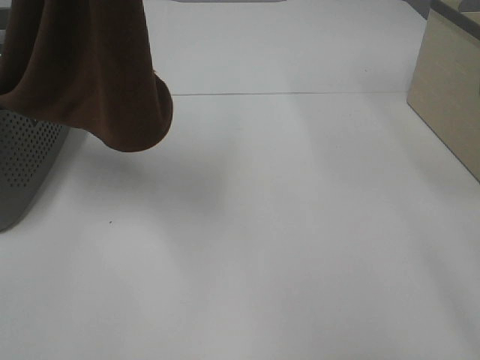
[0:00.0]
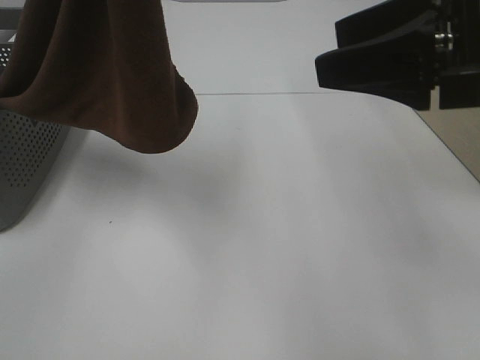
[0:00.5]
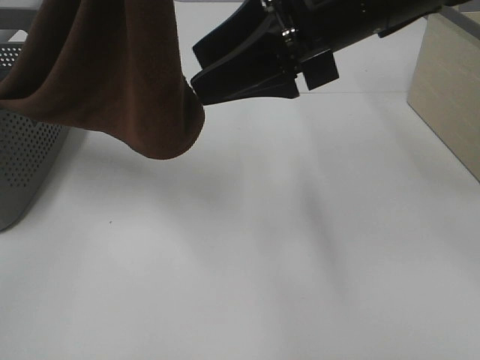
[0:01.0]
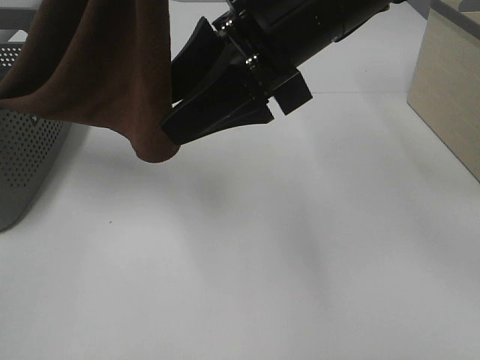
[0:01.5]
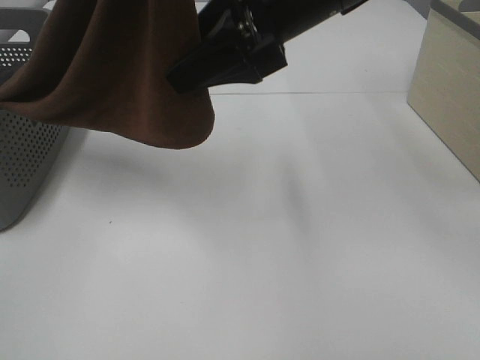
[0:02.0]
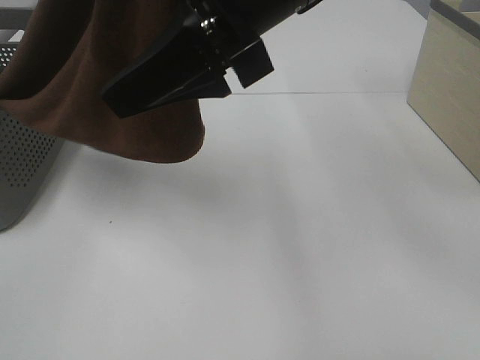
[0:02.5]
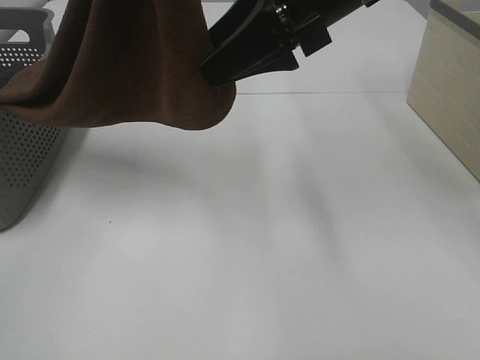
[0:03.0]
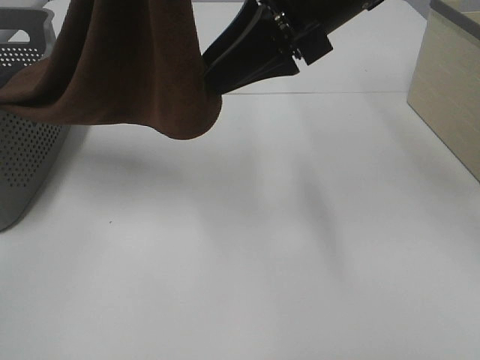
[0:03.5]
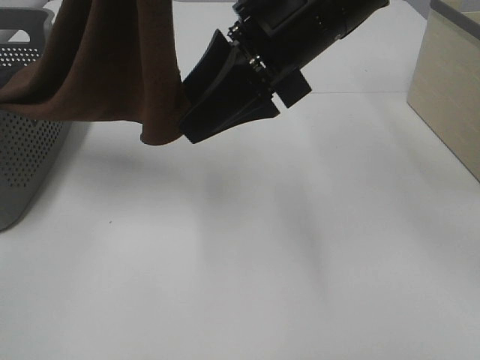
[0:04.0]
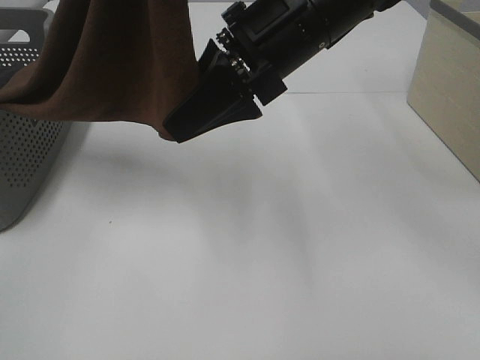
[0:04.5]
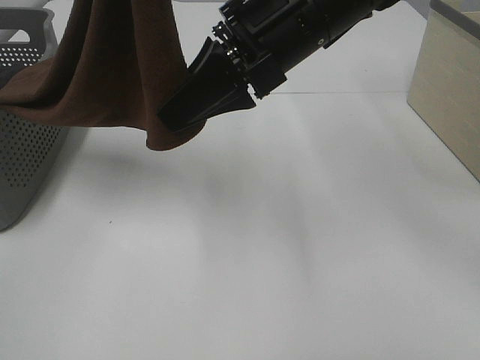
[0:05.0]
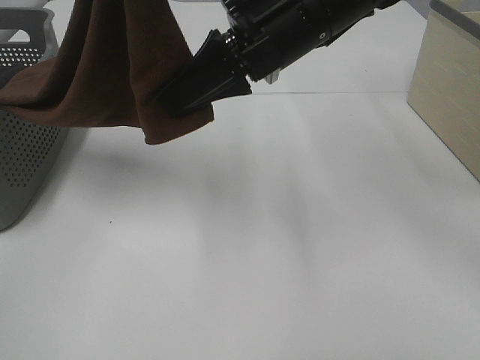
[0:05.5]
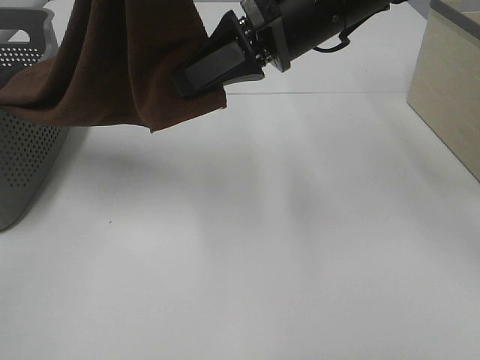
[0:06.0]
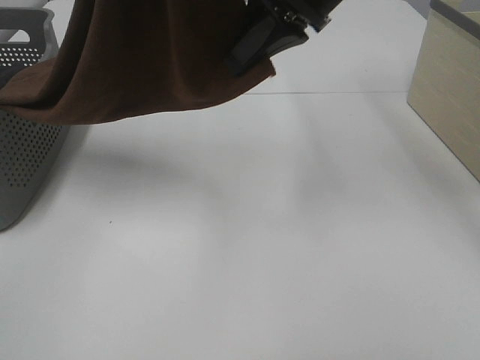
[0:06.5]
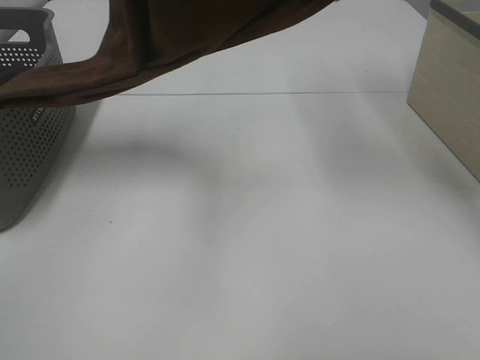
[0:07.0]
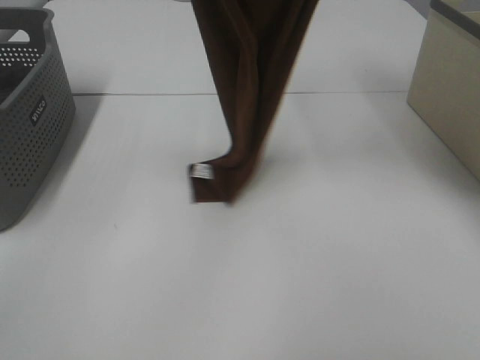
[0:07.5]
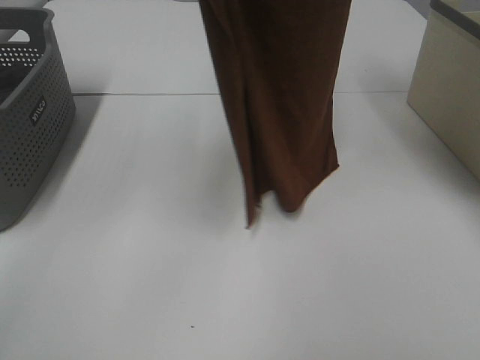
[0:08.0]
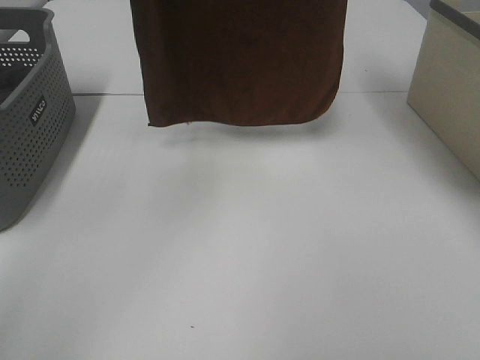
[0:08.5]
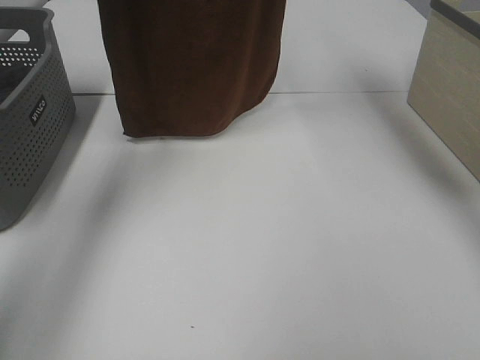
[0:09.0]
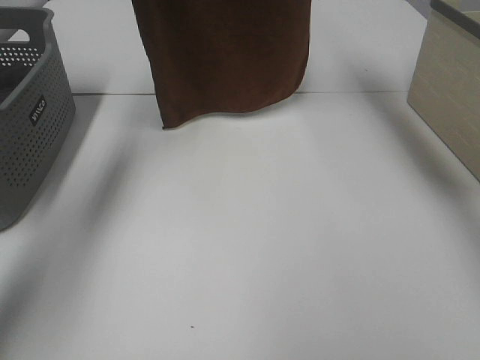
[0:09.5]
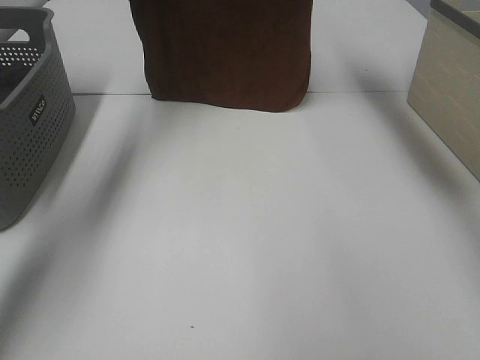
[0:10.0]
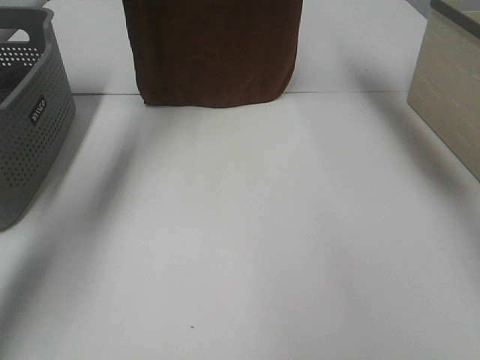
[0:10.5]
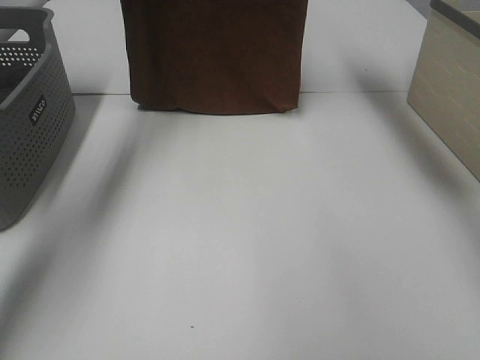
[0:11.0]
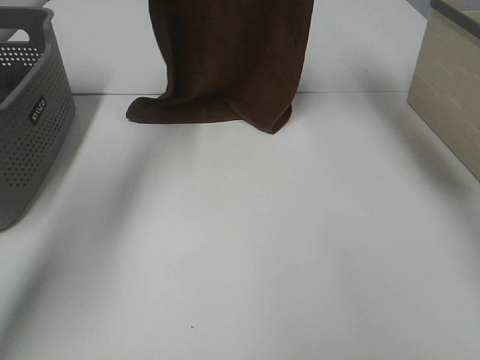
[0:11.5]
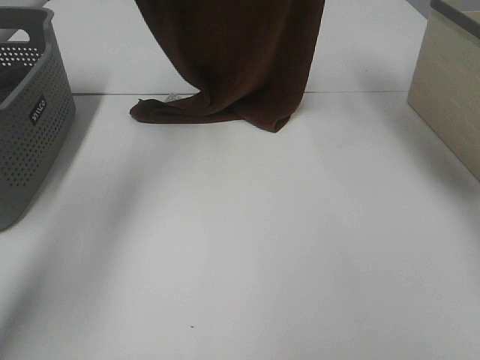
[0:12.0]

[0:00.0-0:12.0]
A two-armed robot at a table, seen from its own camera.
Task of the whole recording: Remove the towel and place it.
Step, 0.0 to 6.5 s: Right hand: grab a corner of the brown towel and straighten it.
0.0 to 2.0 s: The right gripper is displaced to the left and forward by some 25 cm.
2.0 to 4.0 s: There are only small adjustments of the grippers.
4.0 to 6.0 s: The right gripper closes its fingers.
6.0 to 8.0 s: The left gripper goes about 10 cm forward, while the right gripper goes approximately 25 cm upward.
8.0 to 10.0 s: The right gripper moves forward and downward, some 15 cm. The left gripper heads forward, downward and to the left, covering approximately 25 cm.
10.0 to 12.0 s: The right gripper ends up some 5 cm from where it was. Meanwhile the left gripper travels downward by roughly 5 cm.

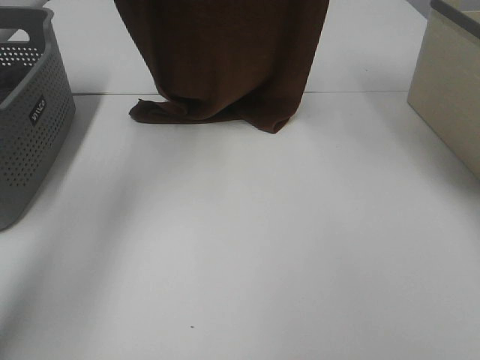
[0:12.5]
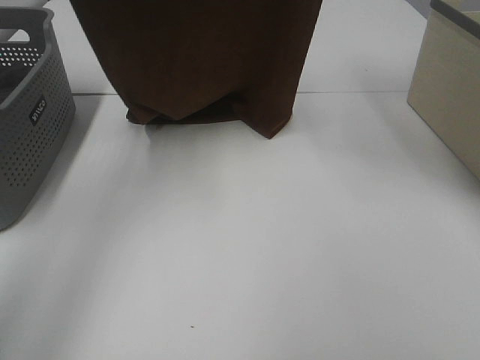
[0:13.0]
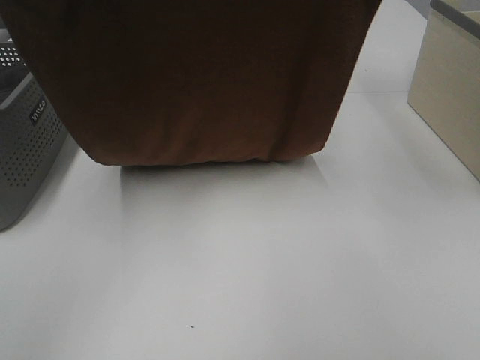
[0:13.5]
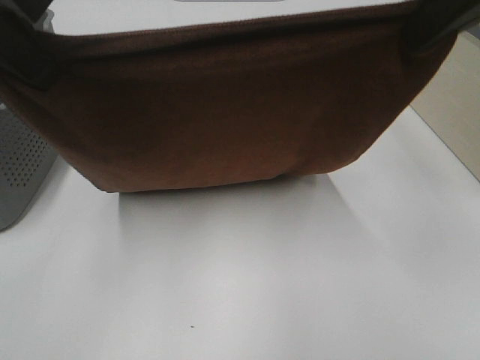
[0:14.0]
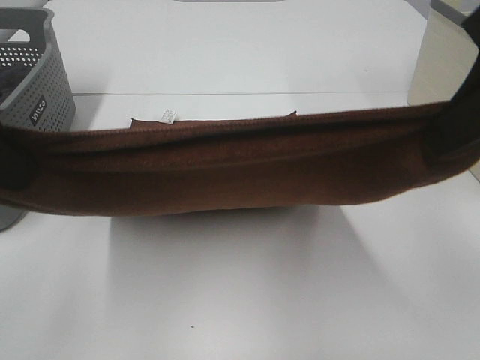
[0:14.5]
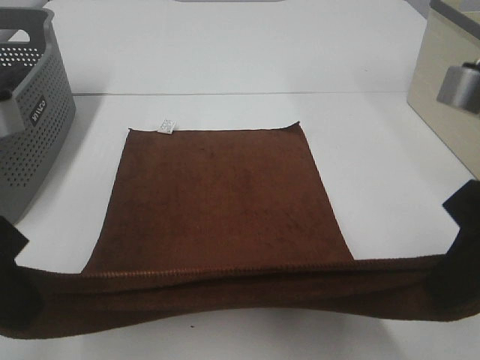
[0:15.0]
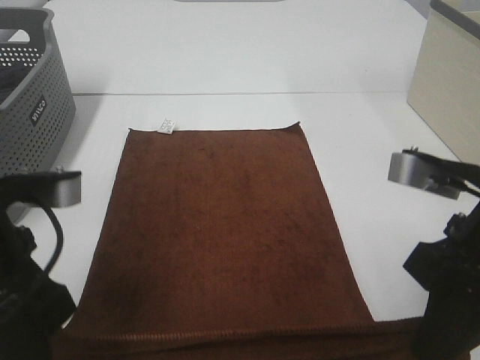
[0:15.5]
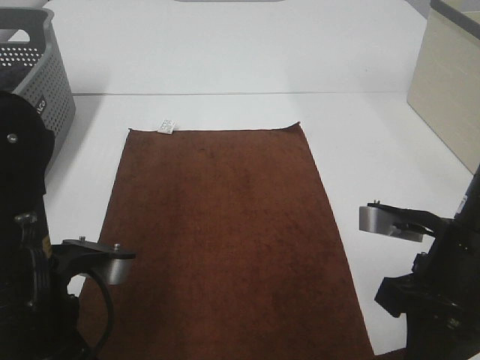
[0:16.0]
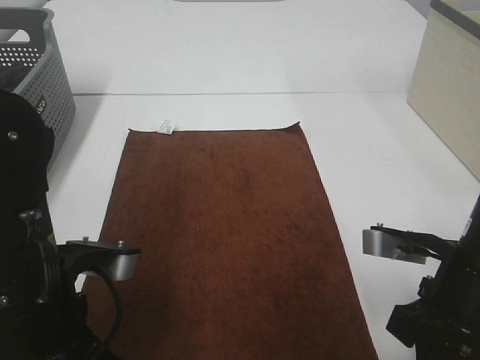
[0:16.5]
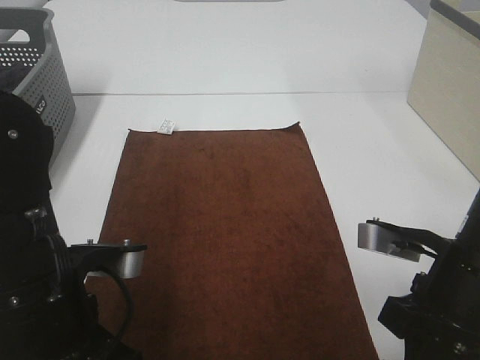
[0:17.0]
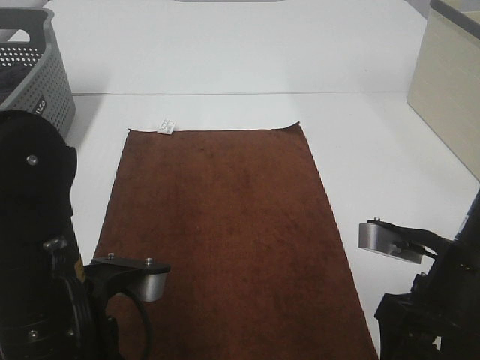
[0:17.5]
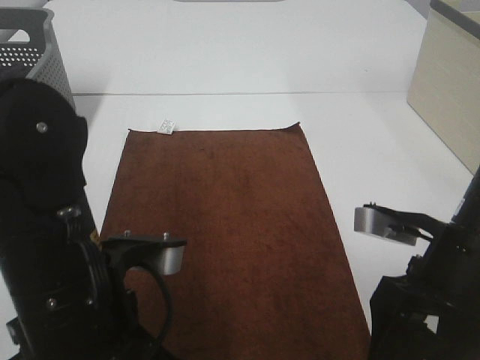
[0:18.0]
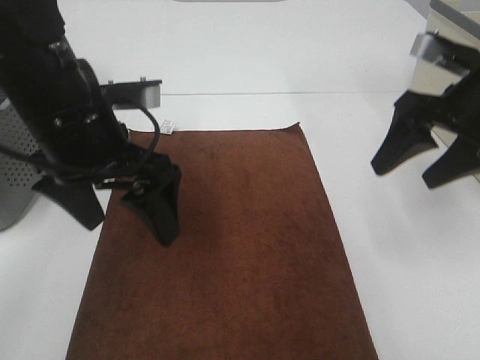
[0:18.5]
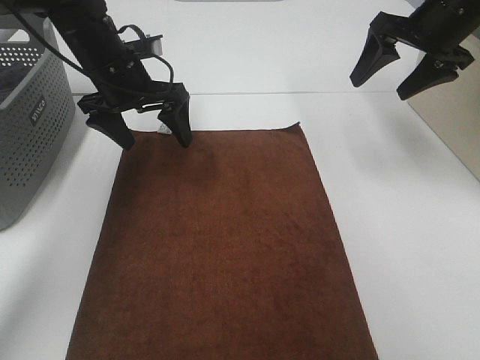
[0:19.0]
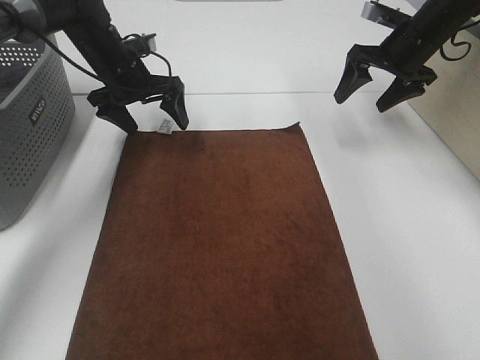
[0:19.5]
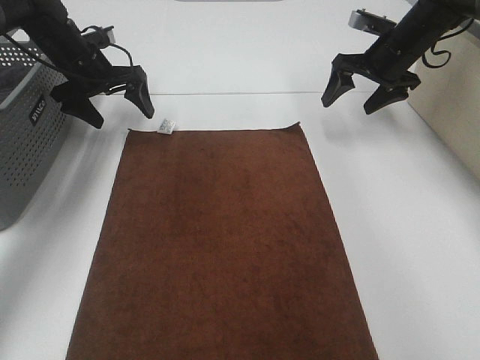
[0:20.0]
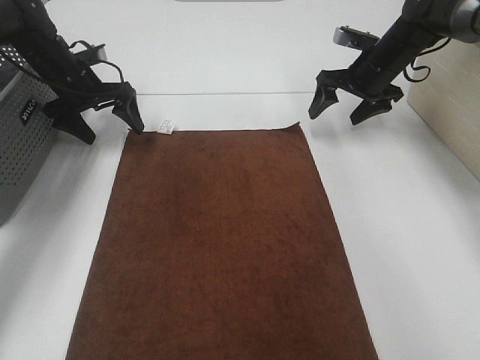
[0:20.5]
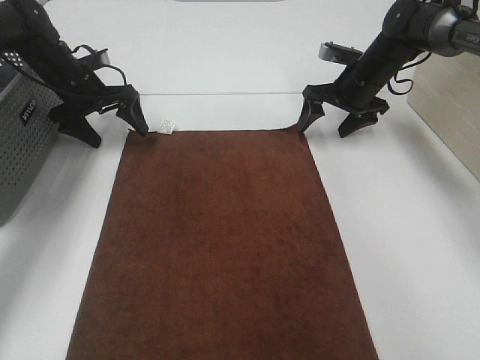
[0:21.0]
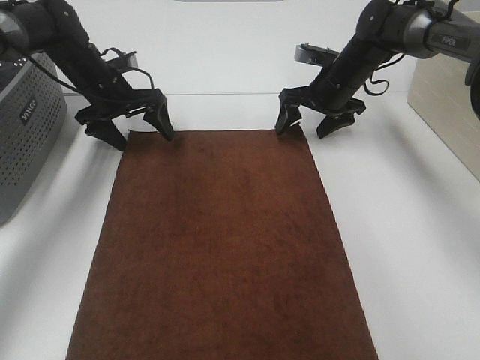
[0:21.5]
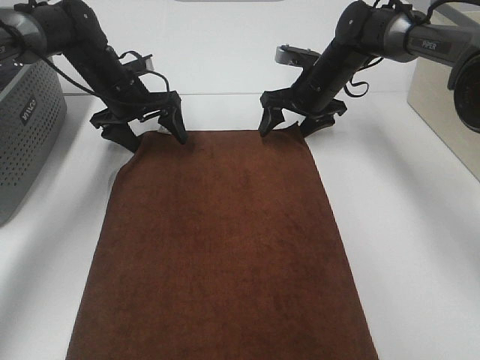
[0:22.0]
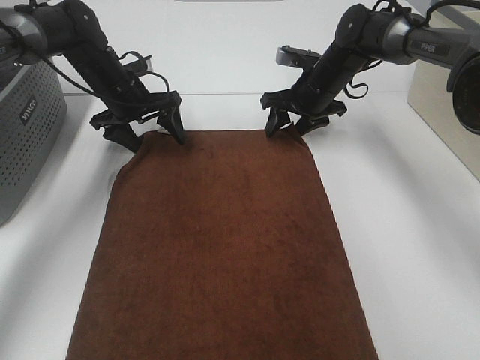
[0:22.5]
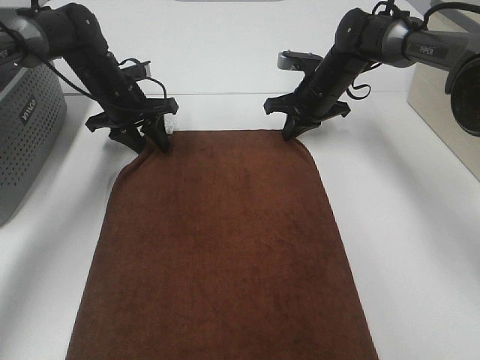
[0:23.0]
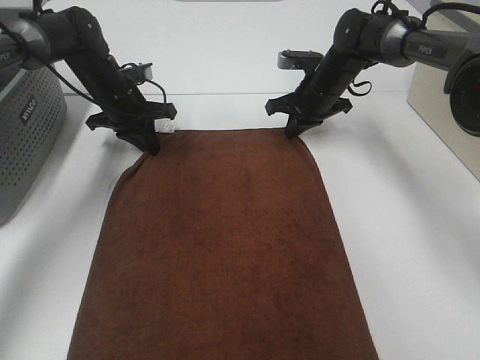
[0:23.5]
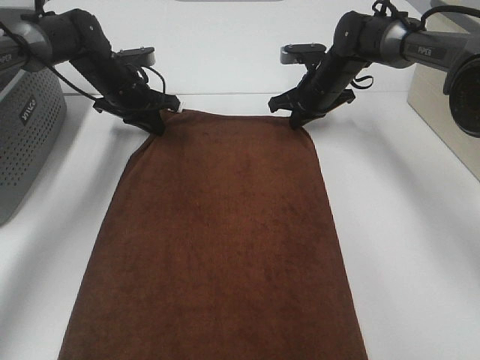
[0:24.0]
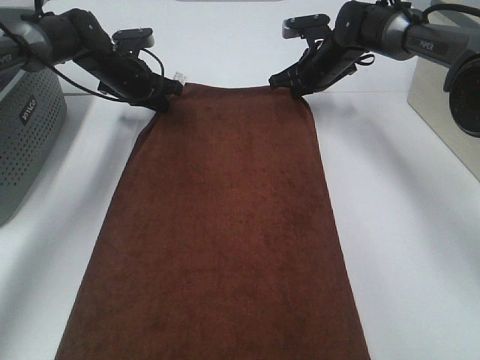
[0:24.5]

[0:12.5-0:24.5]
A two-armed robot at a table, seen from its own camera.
Task of the whole recording: Remove the towel and place it.
Step, 12.5 to 20.5 s: Left hand:adjust the brown towel.
Step, 12.5 to 20.5 s: Right hand:adjust the brown towel.
12.5 to 14.5 s: The two grippers go some 25 cm backward.
14.5 to 16.5 s: The two grippers go approximately 20 cm downward.
16.5 to 18.5 s: Both grippers move forward and upward, roughly 15 cm. The right gripper opens up; the left gripper opens up.
18.5 to 20.5 s: The left gripper goes approximately 30 cm forward, to the left and downward. Meanwhile the right gripper moves forward and downward, roughly 25 cm.
20.5 to 22.5 s: The right gripper shifts some 10 cm to the left. Meanwhile the left gripper travels to the right by some 5 cm.
22.5 to 24.5 s: The right gripper closes. The left gripper closes its fingers.

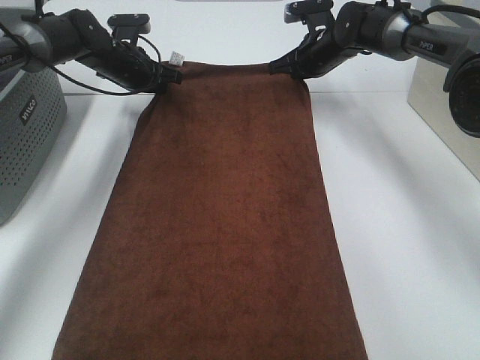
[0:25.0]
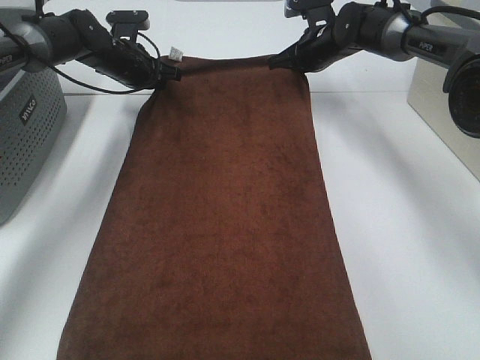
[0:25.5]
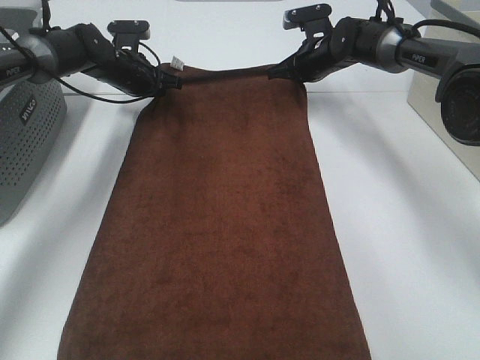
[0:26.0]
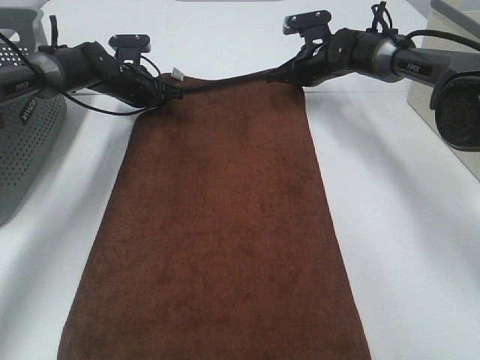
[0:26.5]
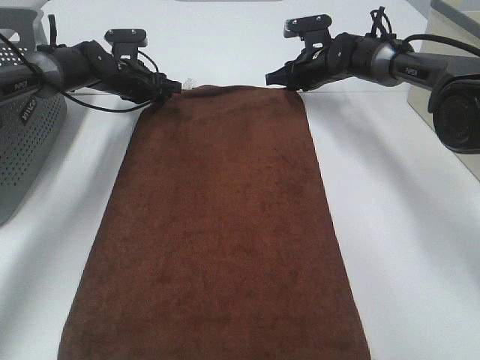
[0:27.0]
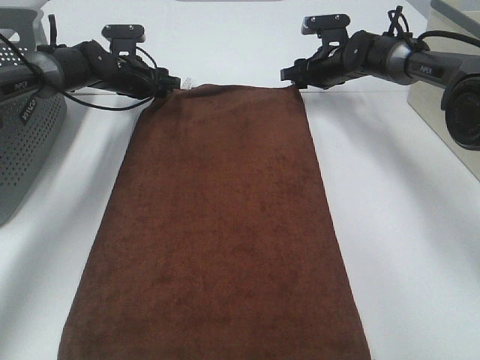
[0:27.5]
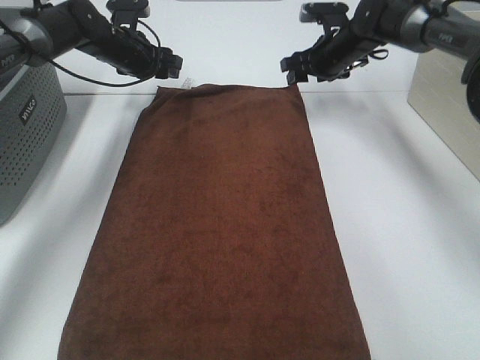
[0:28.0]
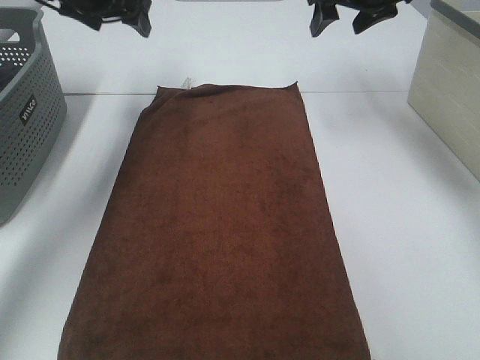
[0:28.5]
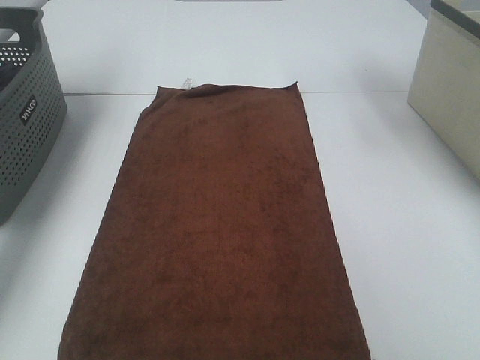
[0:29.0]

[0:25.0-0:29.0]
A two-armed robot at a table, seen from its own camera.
Task of the whole recording: Remove the towel and place it.
25.0 to 27.0 s: The right gripper opens. Meanwhile the left gripper opens its fingers.
27.0 to 29.0 s: The left gripper is displaced upward and to the left by about 35 cm. The right gripper goes approximately 30 cm upward and backward, and opens up.
